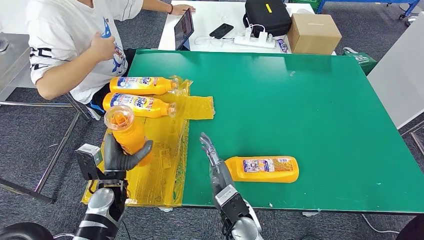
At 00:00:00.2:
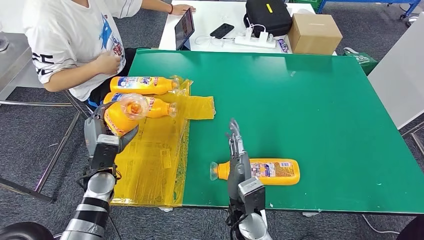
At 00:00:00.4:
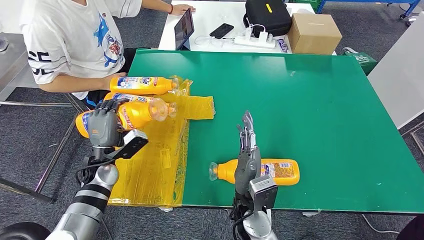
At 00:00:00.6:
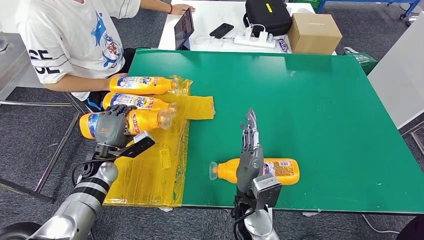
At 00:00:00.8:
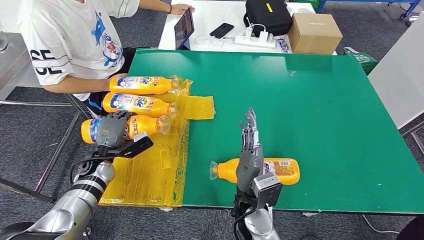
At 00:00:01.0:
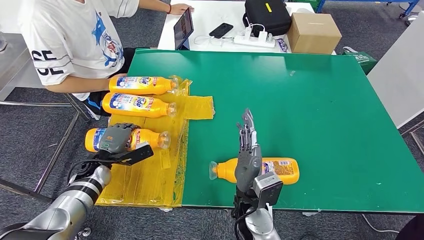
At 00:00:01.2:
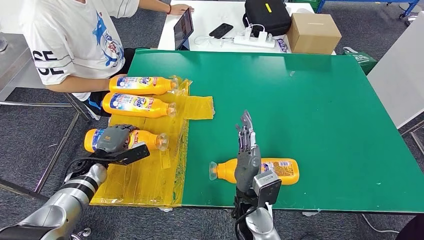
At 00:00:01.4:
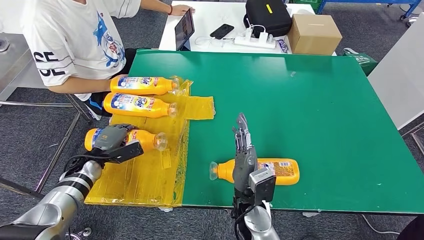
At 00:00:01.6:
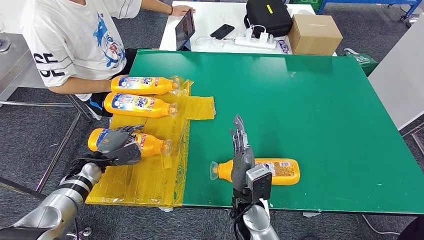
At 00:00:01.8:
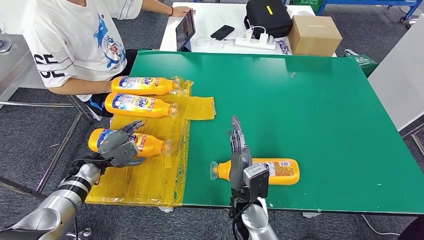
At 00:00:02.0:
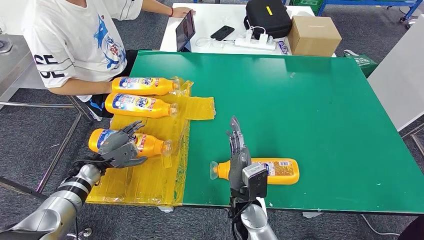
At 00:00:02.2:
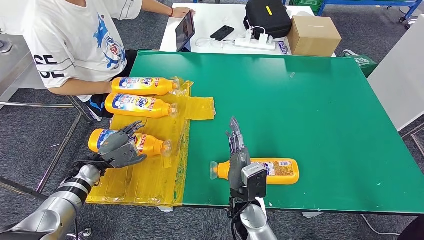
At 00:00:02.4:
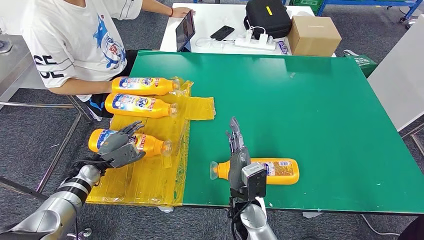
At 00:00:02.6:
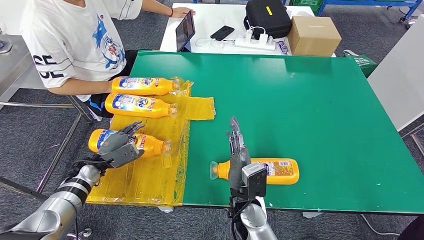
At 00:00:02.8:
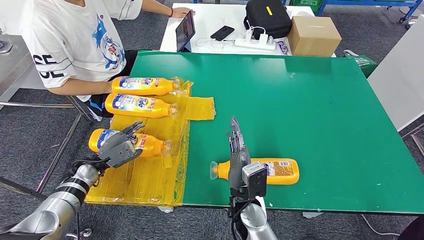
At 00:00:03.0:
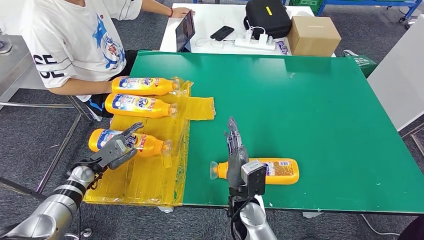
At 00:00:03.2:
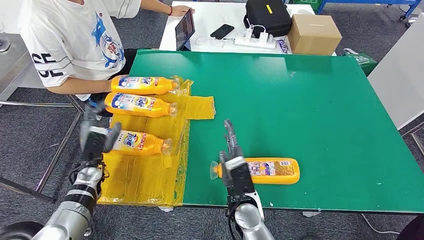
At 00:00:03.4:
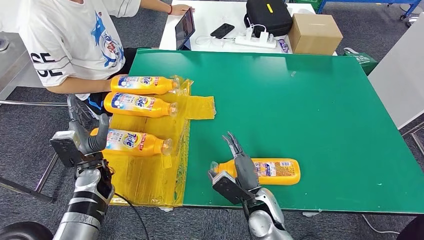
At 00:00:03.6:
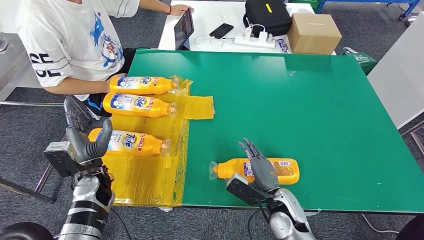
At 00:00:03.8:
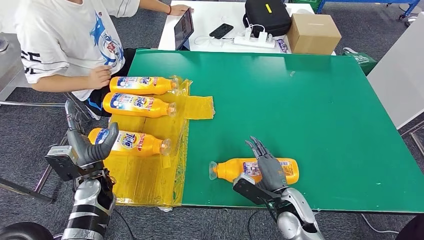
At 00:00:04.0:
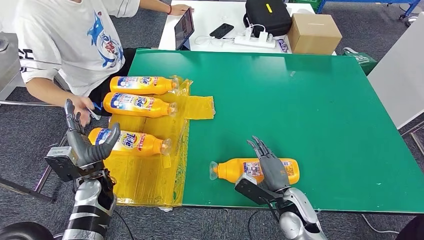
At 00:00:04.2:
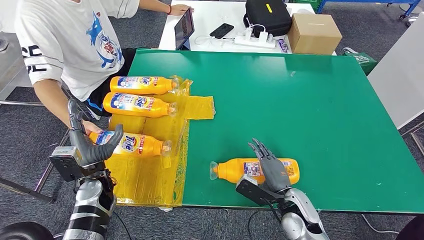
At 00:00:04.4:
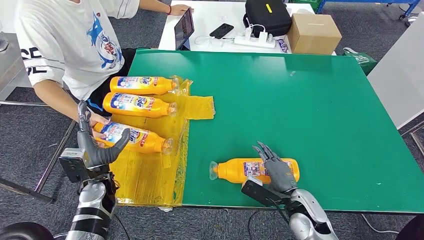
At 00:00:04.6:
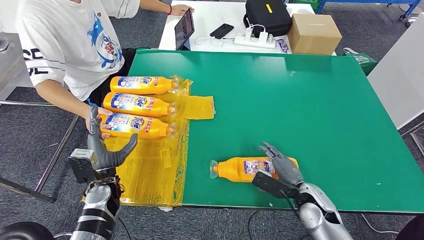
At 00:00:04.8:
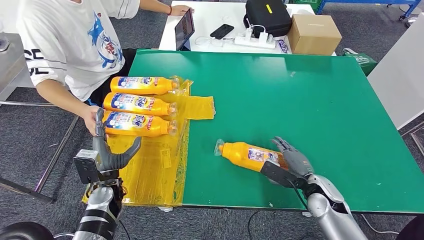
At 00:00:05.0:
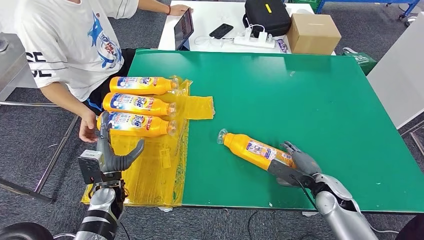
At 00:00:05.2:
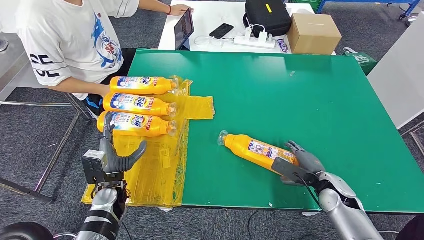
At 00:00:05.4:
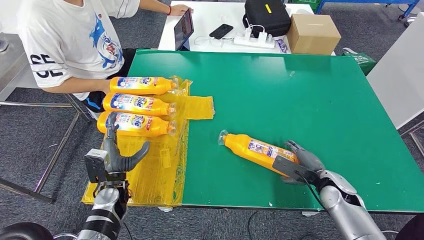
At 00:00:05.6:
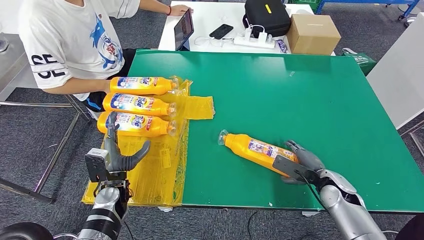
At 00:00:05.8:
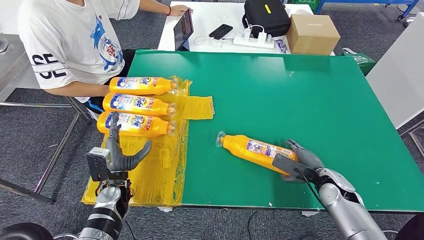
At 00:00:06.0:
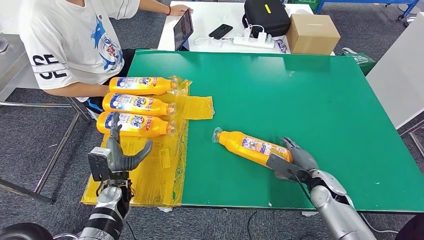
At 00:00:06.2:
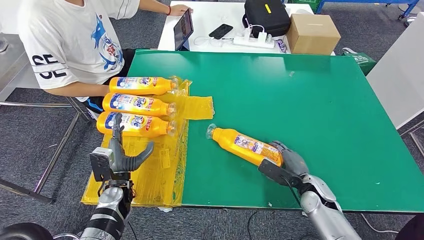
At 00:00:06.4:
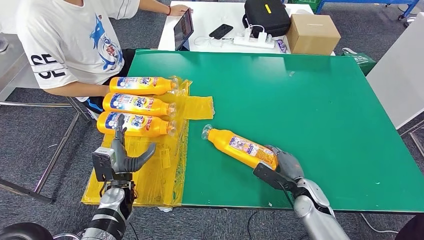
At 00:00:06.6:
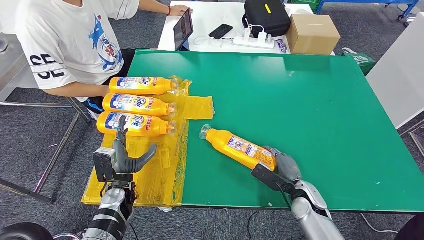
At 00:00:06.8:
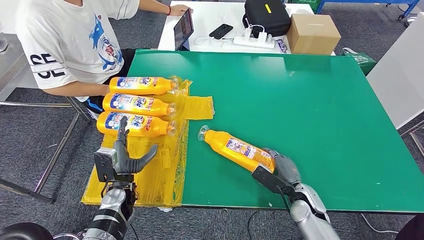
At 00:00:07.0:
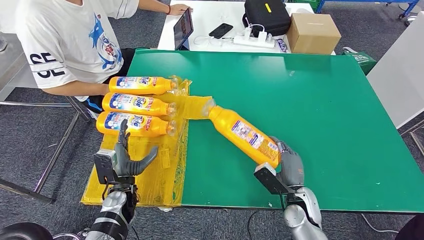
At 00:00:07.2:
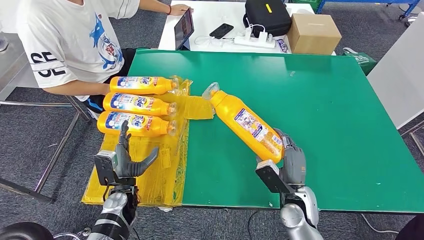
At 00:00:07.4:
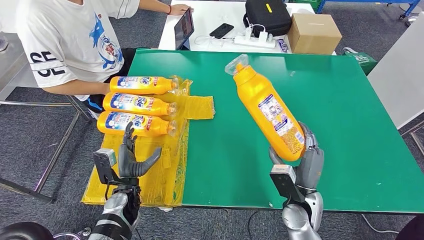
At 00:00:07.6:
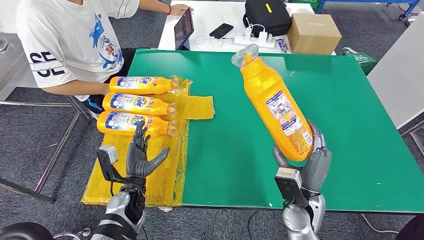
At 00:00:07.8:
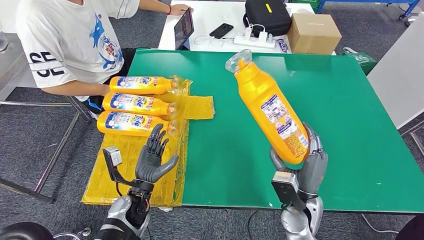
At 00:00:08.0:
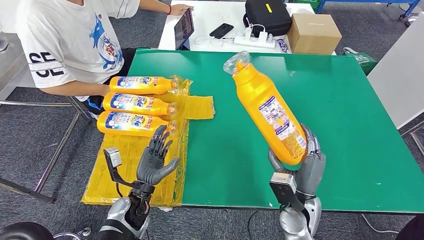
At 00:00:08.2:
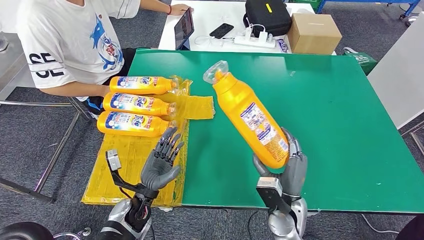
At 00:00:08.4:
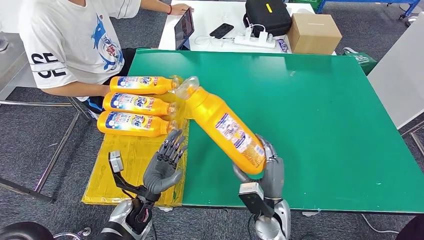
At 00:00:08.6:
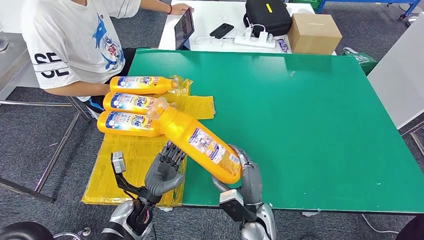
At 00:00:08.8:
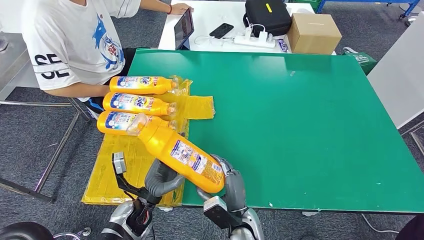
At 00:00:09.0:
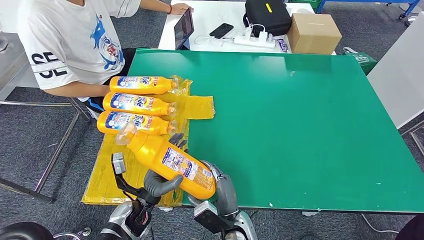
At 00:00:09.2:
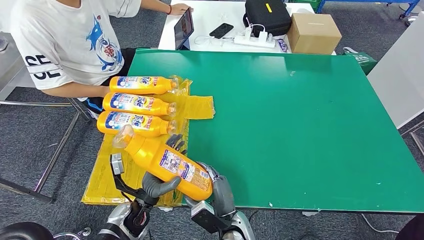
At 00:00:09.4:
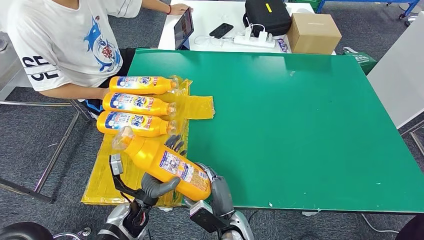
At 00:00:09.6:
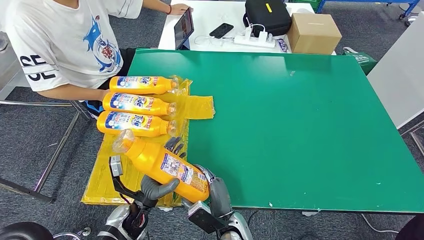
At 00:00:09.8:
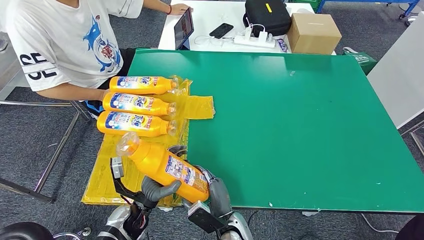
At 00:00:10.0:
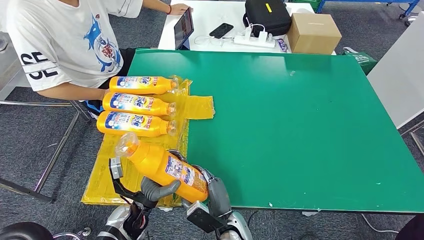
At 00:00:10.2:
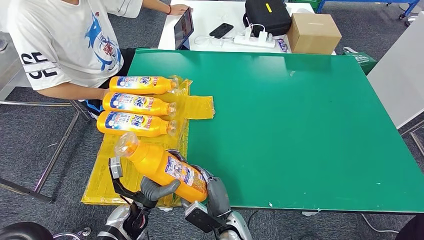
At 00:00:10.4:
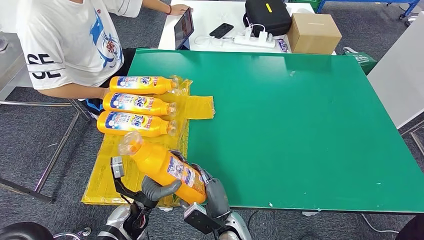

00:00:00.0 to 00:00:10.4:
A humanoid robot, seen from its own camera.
Step, 00:00:02.0 to 00:00:09.2: Pick up the bottle from the table.
00:00:00.0 to 00:00:01.4: The left hand travels to the left and forward by approximately 15 cm.
00:00:06.0 to 00:00:07.4: The right hand shifts some 10 cm to the left and backward.
00:00:07.4 to 00:00:09.0: The left hand shifts by approximately 5 cm; the right hand heads to the left and downward, covering approximately 15 cm.
00:00:09.0 to 00:00:10.4: The hands make only small movements.

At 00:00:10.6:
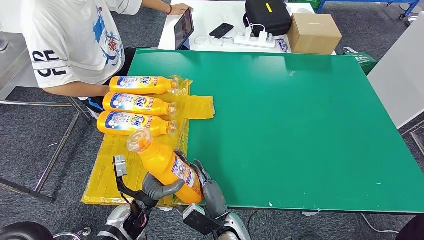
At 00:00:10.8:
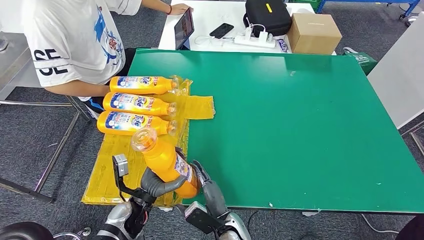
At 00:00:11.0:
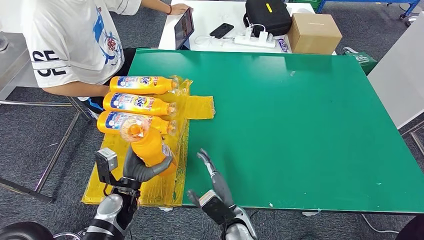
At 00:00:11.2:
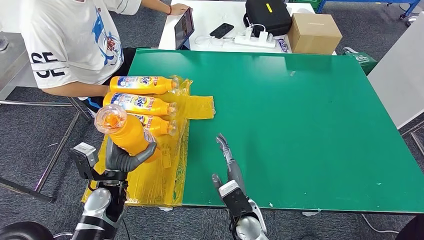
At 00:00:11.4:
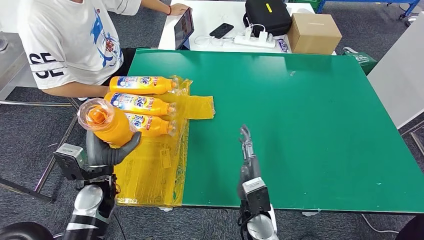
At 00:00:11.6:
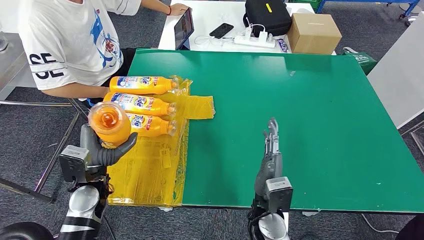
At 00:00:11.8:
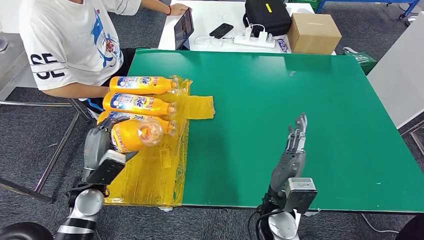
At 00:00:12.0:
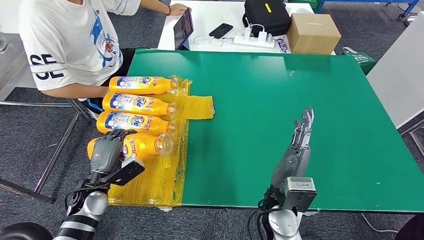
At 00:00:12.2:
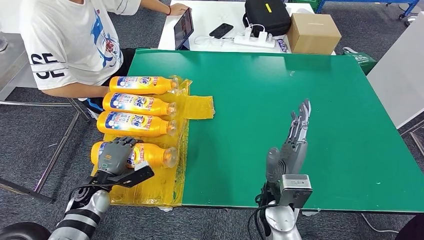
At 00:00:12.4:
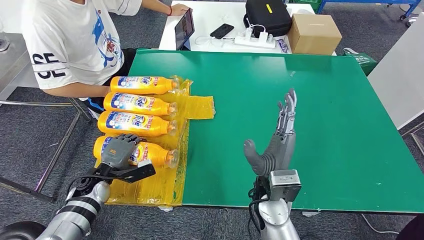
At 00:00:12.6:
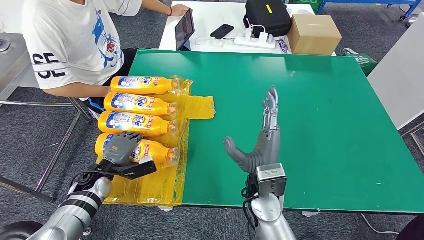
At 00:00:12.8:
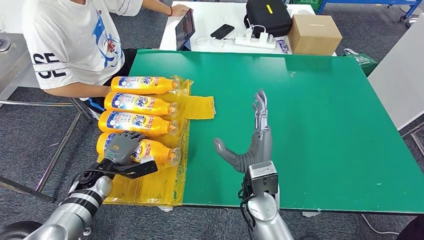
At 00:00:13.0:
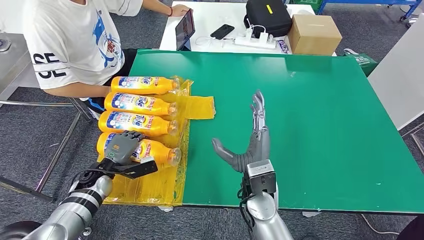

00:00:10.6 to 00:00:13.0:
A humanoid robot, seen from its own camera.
Step, 00:00:10.6 to 00:00:12.8: Flip the bottle to face forward.
00:00:10.6 to 00:00:11.8: The left hand is displaced to the left and upward by roughly 15 cm. The right hand moves upward and to the right, some 15 cm.
